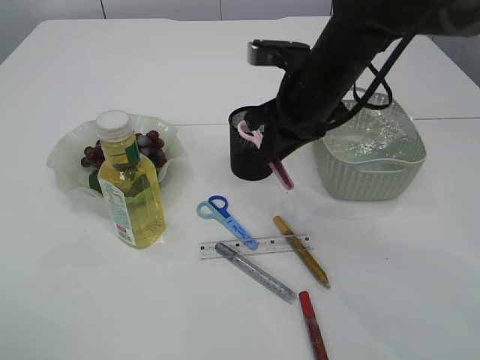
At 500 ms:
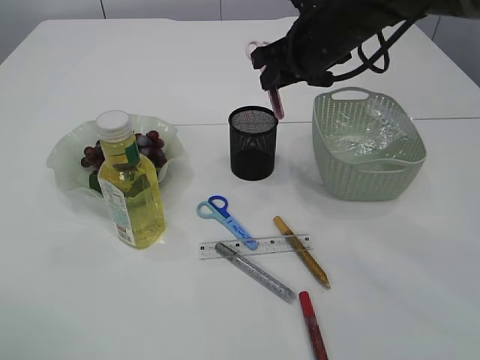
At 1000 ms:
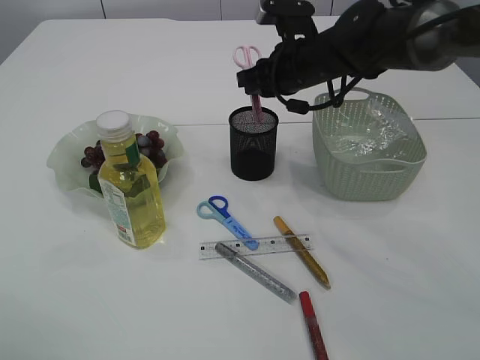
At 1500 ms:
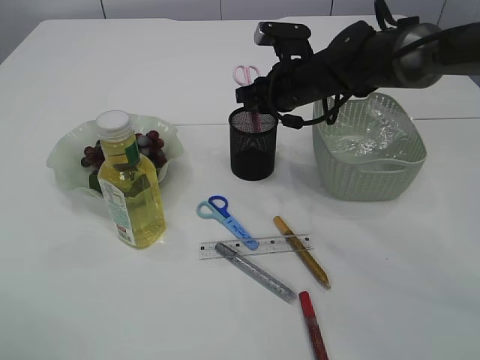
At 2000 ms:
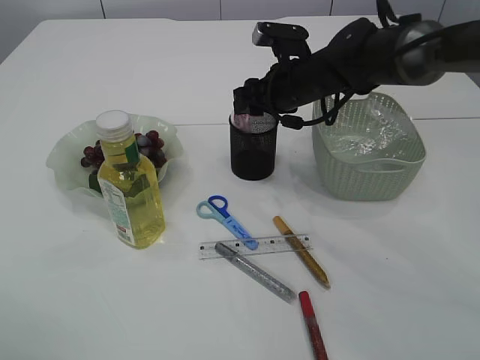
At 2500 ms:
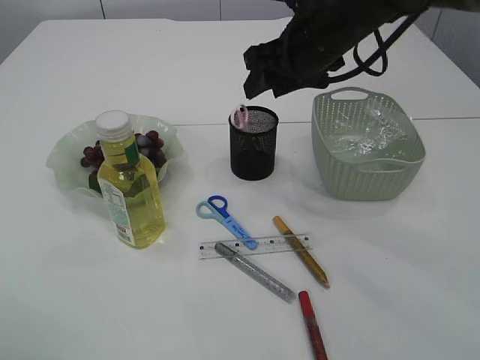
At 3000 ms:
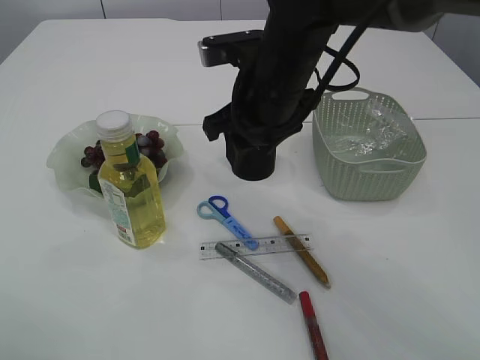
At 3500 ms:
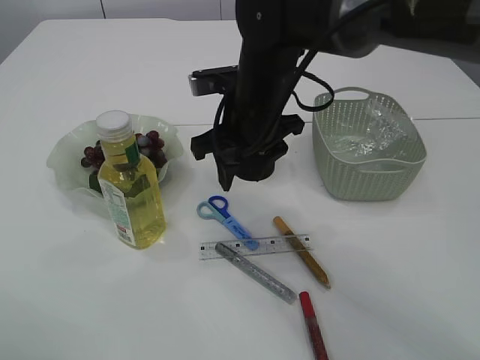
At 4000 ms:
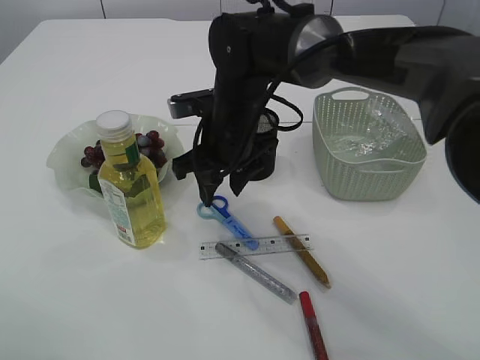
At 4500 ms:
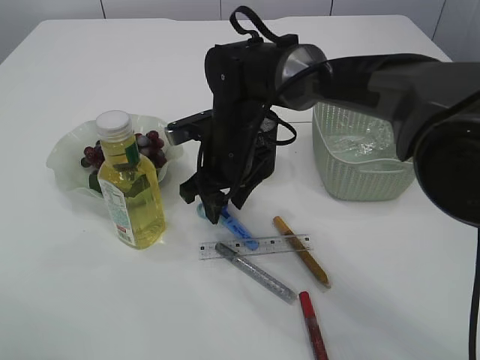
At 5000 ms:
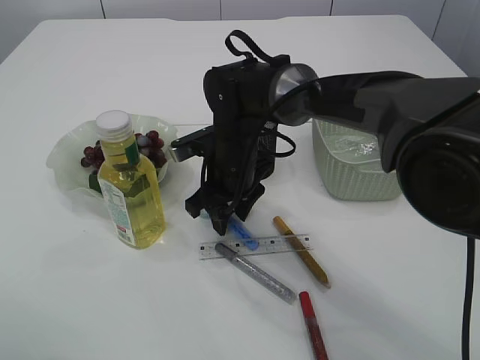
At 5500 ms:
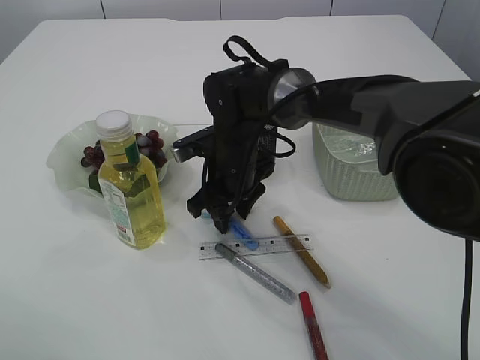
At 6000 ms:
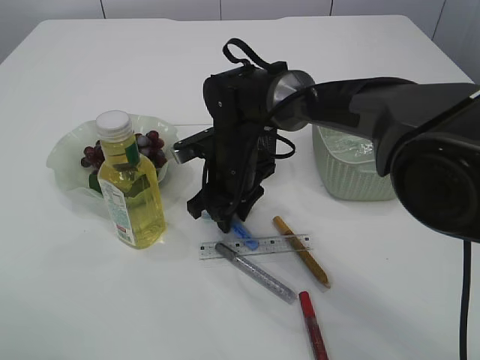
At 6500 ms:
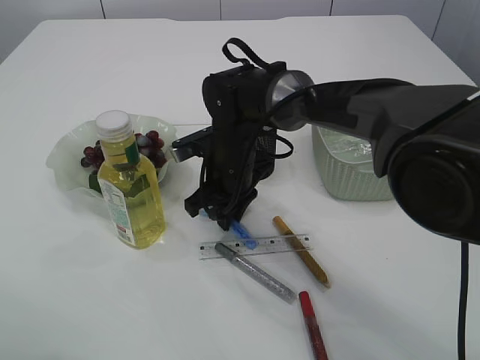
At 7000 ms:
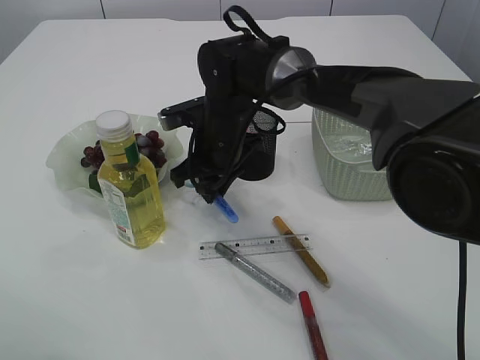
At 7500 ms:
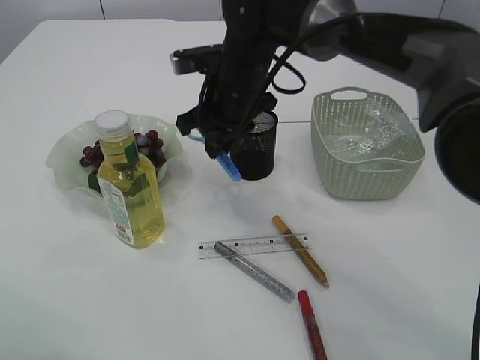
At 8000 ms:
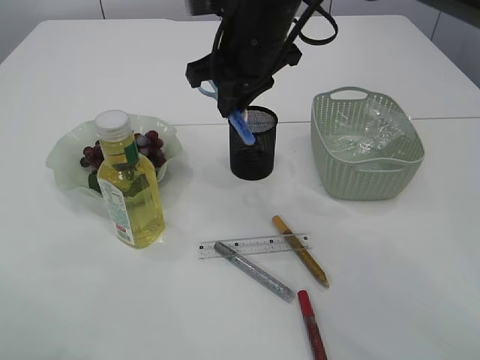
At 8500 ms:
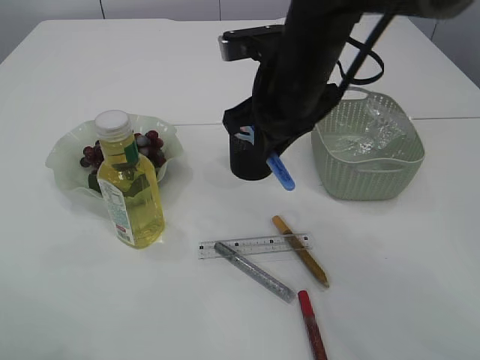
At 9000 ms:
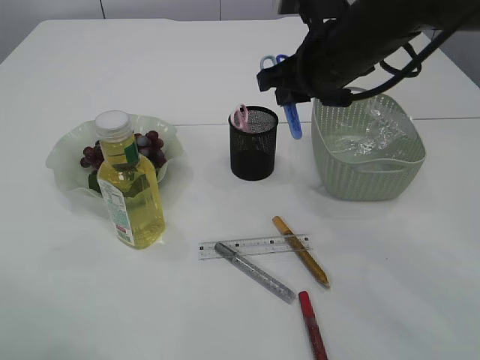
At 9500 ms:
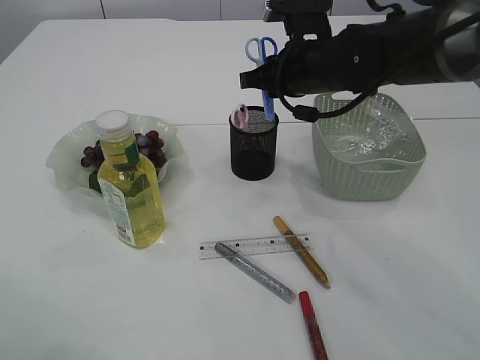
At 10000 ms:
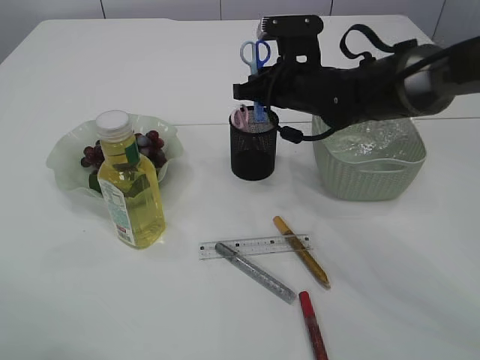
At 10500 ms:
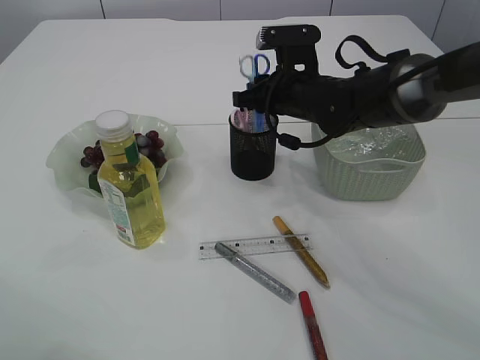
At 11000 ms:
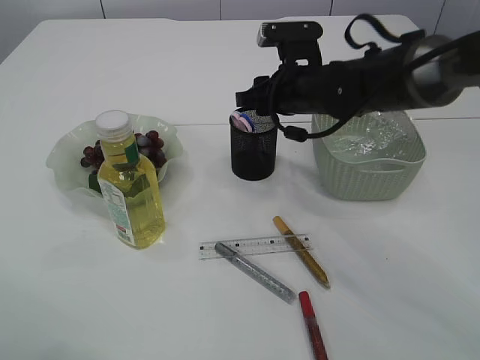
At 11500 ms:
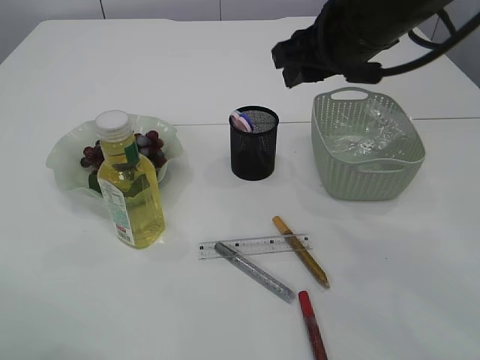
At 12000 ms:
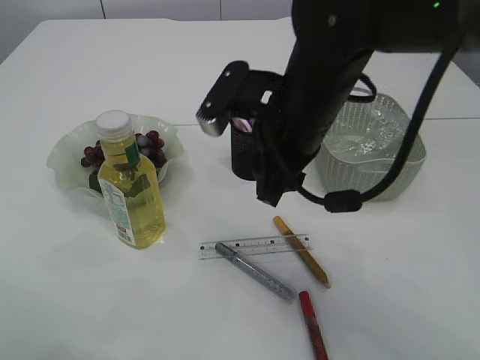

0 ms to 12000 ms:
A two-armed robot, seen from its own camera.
Step, 0 ms to 2000 ms: Place the pink scissors into the pen holder.
Step, 2500 ms to 7000 ms: pick up the blue scissors.
Step, 7500 ms to 11000 ms: Place the blue scissors into the pen holder.
0 ms to 2000 ms: The right gripper shifts some 10 cm forward, and opens up.
2000 ms to 4000 ms: The right gripper heads to the left and backward, covering about 15 cm.
4000 ms to 6000 ms: The right gripper shifts approximately 5 cm downward.
6000 ms to 8000 ms: The right gripper is displaced upward by approximately 15 cm.
8000 ms to 10000 ms: The right gripper shifts approximately 10 cm downward and to the right.
10000 ms to 12000 ms: The right gripper travels backward and upward by roughly 15 cm.

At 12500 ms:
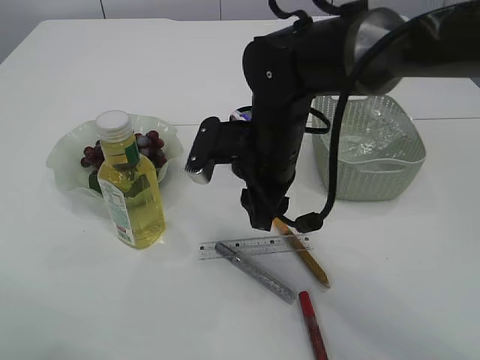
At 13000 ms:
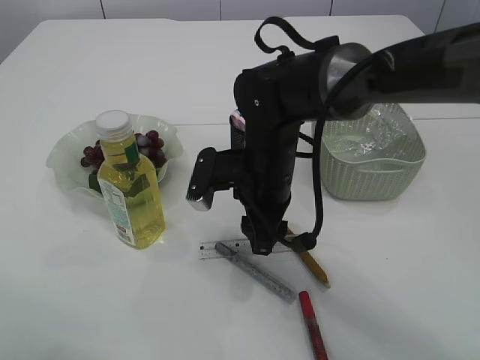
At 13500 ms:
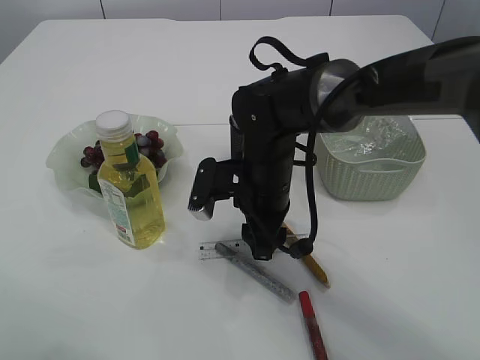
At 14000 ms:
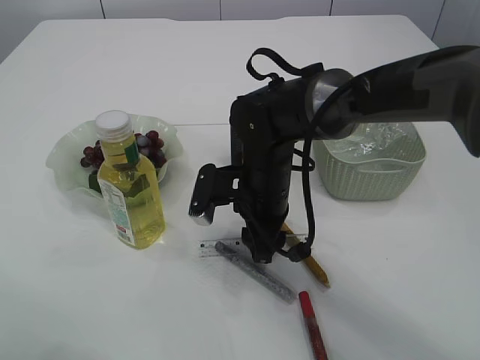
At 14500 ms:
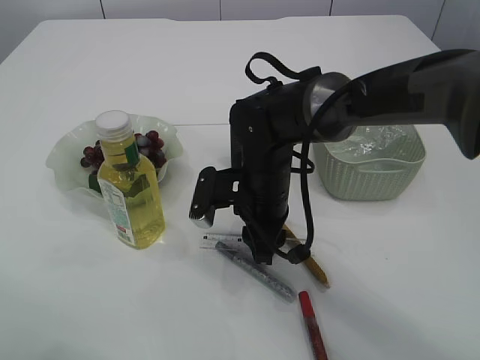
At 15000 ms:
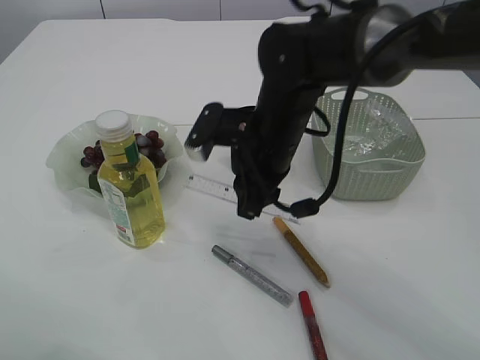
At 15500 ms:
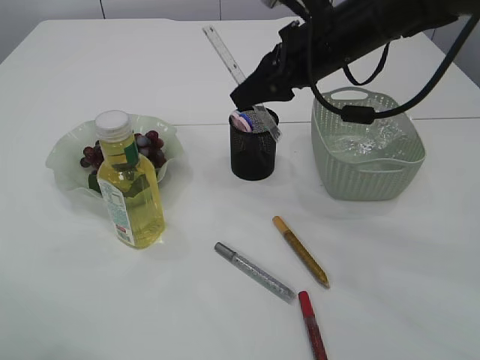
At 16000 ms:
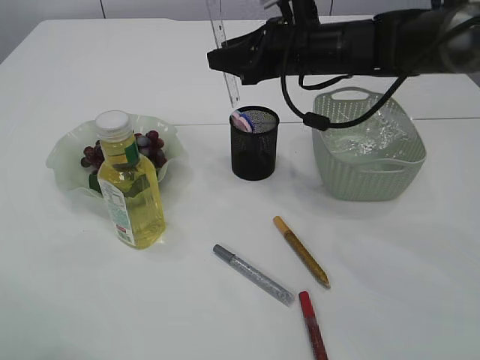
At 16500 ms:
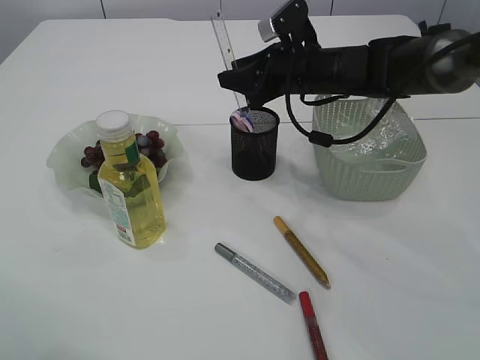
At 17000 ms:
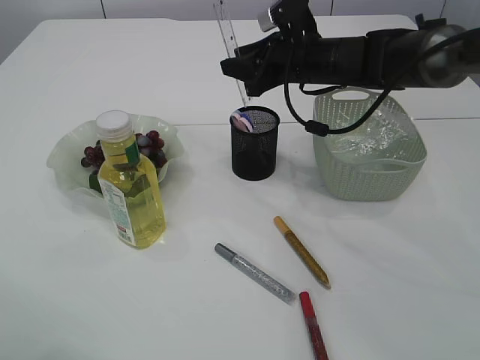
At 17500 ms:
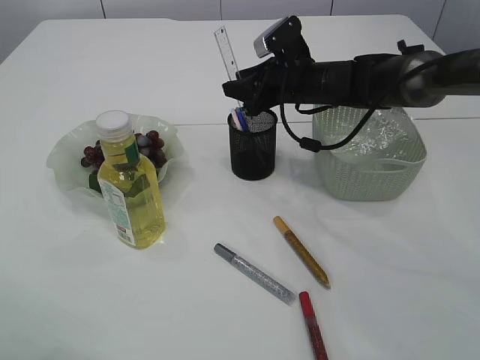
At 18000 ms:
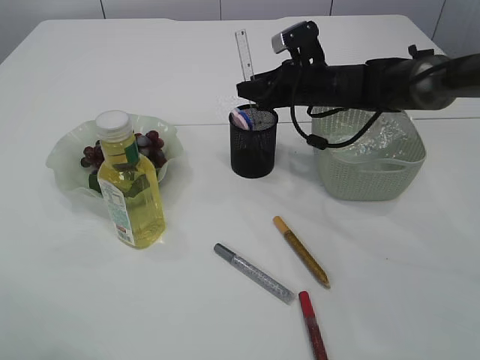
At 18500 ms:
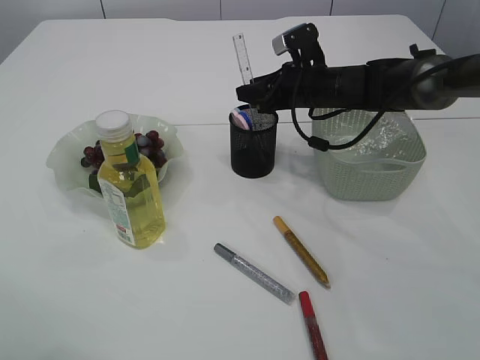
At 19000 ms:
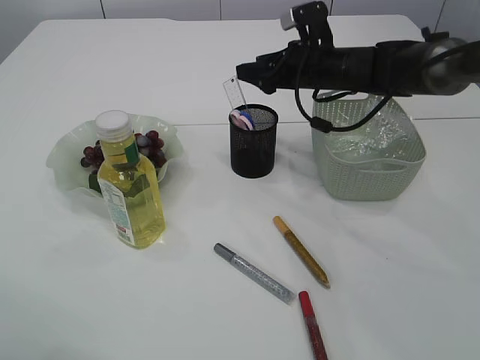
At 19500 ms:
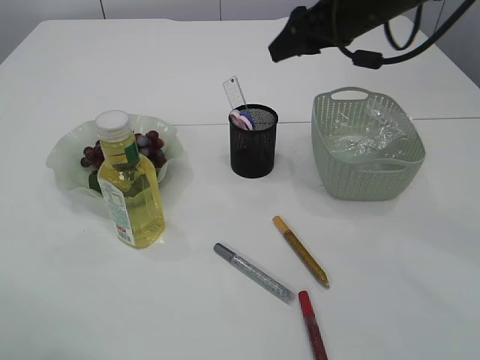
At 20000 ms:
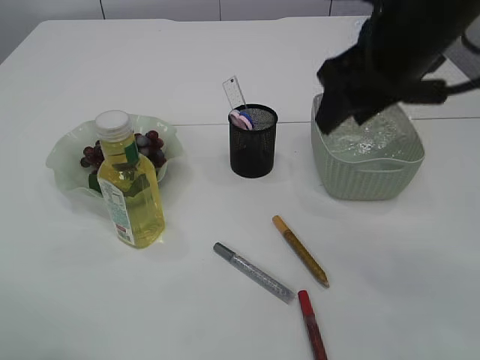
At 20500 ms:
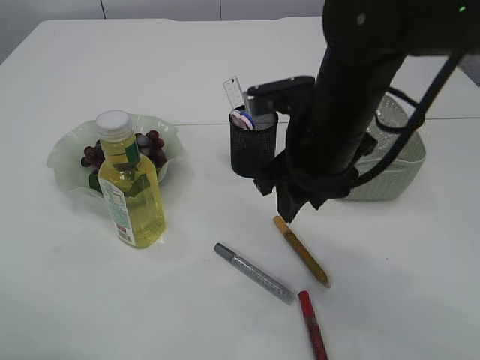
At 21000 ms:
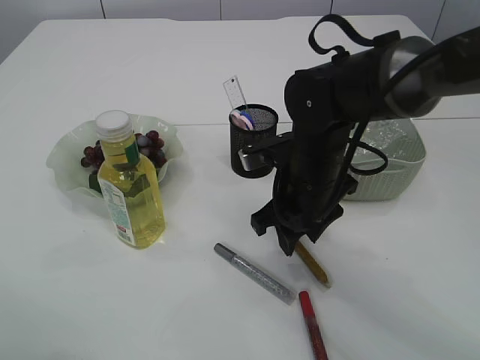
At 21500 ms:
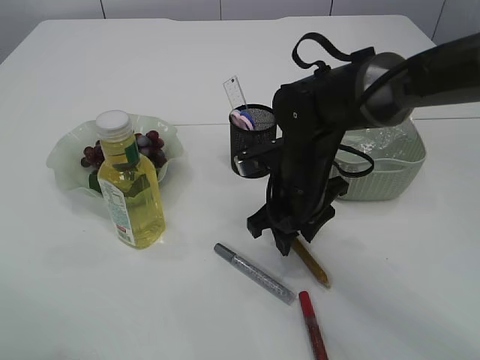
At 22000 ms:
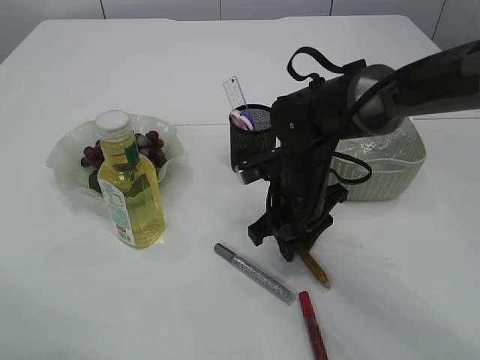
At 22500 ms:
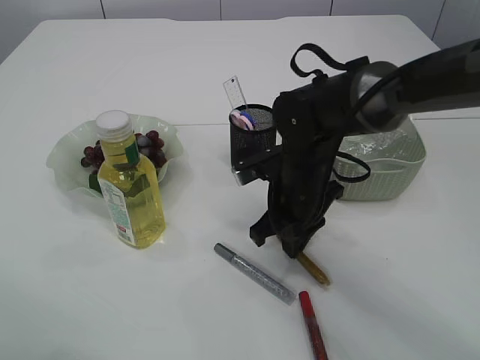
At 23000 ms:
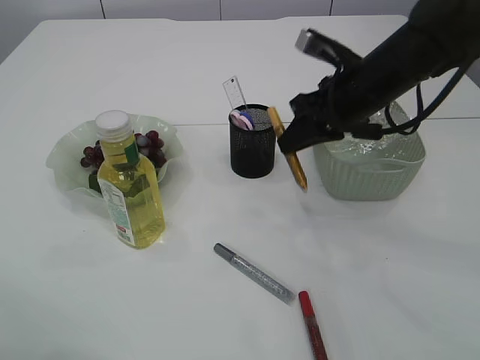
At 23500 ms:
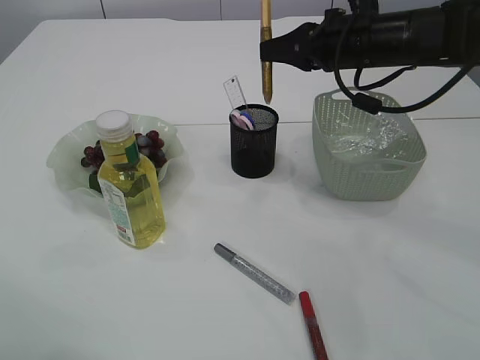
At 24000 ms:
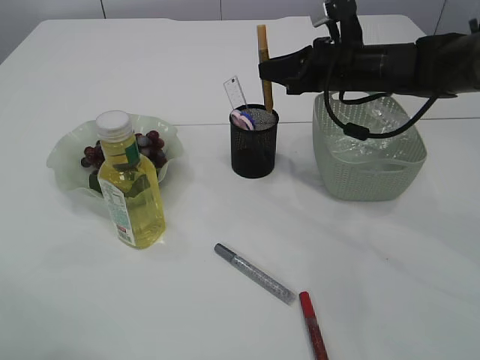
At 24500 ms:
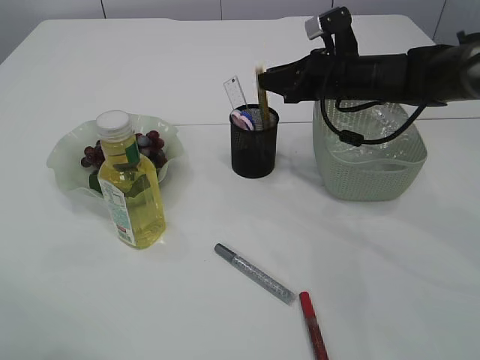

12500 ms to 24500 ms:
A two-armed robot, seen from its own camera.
Step, 12500 ms to 15000 ms: pick up the ruler.
Step, 15500 ms to 19000 ms: Place the ruler into the pen holder.
Step, 19500 ms to 22500 ms: pick up the yellow glue.
12500 ms to 14500 ms: The right gripper heads downward, covering roughly 5 cm.
14500 ms to 16500 ms: The right gripper moves forward, upward and to the right, some 15 cm.
16500 ms to 18500 ms: The right gripper ends up roughly 5 cm from where it was.
18500 ms to 20500 ms: The right gripper moves backward, about 20 cm.
20500 ms to 22500 ms: The right gripper heads downward, covering roughly 10 cm, and closes up.
22500 ms to 24500 ms: The right gripper goes about 15 cm forward, to the right and upward.

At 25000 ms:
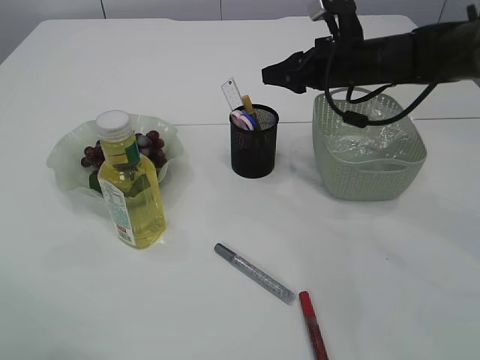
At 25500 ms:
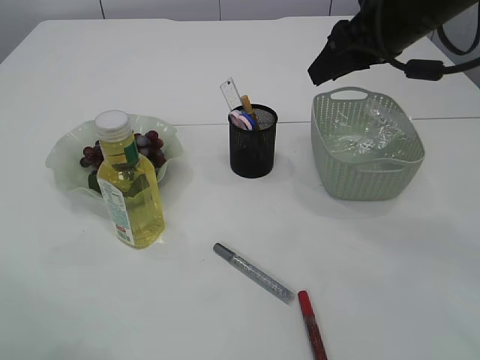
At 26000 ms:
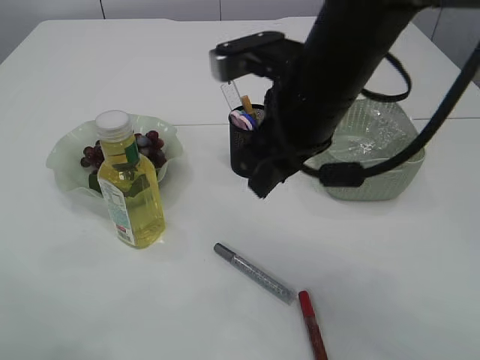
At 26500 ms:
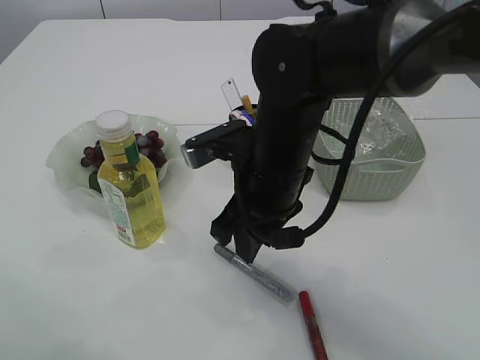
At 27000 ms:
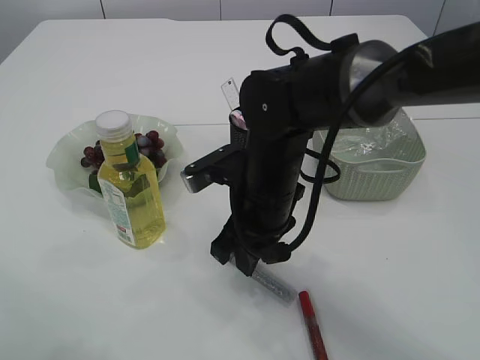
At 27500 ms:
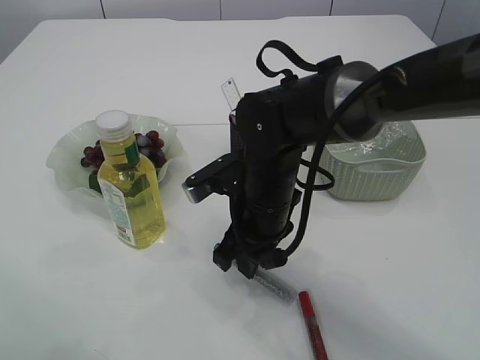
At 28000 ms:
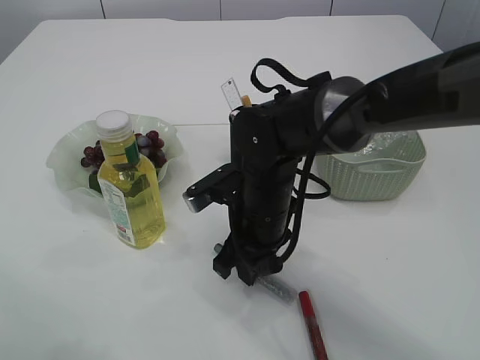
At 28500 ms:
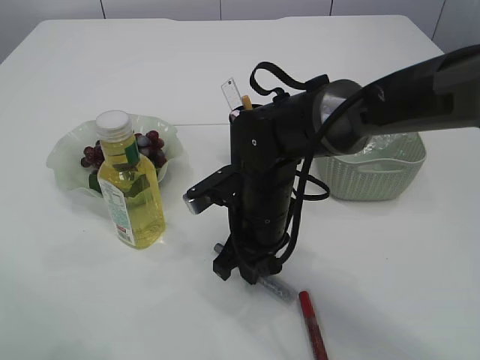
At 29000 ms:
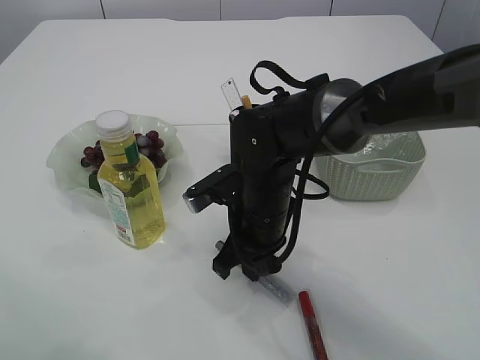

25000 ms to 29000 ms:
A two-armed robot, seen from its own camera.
25000 ms to 27000 ms: The right gripper goes approximately 20 cm backward and to the left.
27000 ms to 29000 ms: The right gripper closes its fingers.
